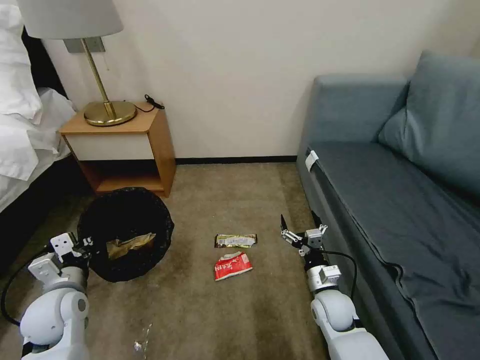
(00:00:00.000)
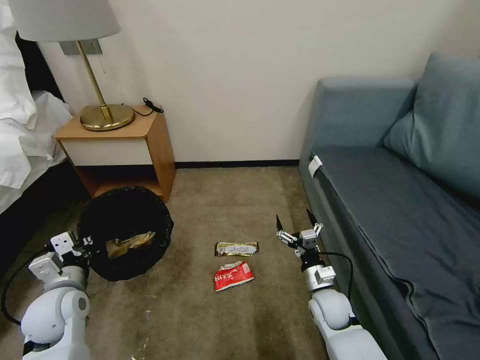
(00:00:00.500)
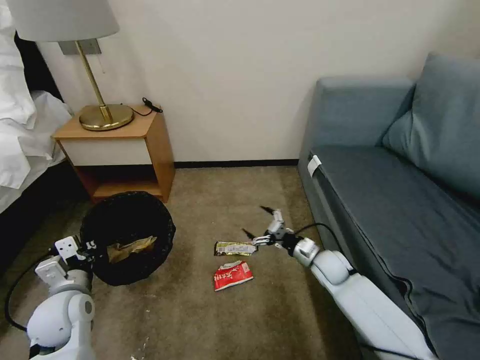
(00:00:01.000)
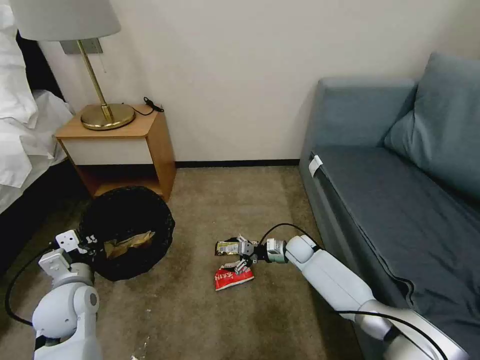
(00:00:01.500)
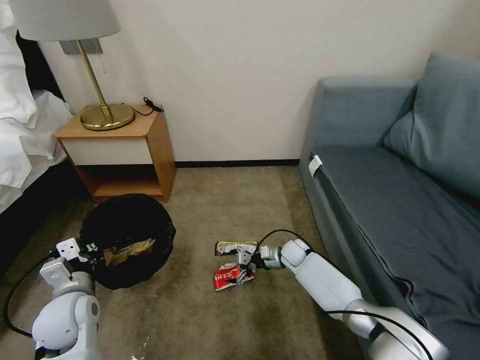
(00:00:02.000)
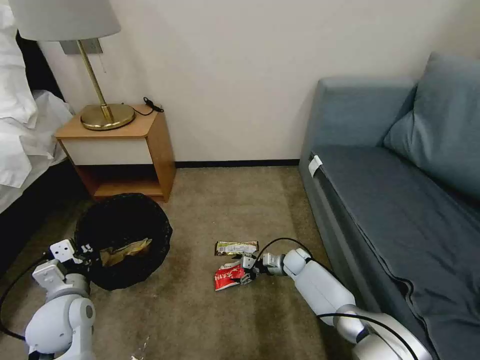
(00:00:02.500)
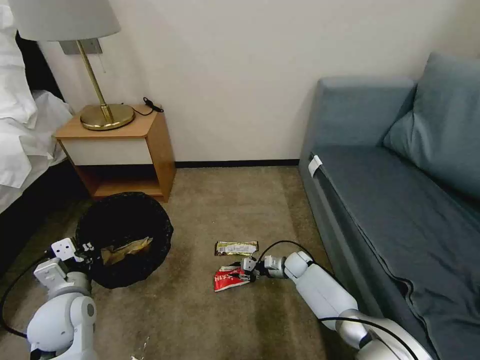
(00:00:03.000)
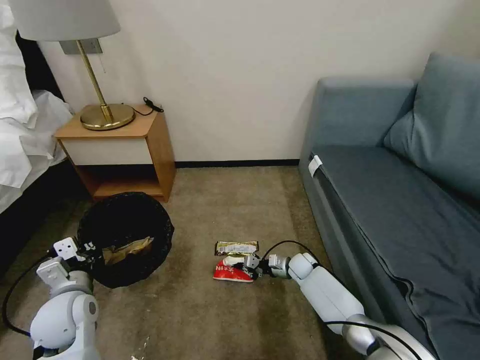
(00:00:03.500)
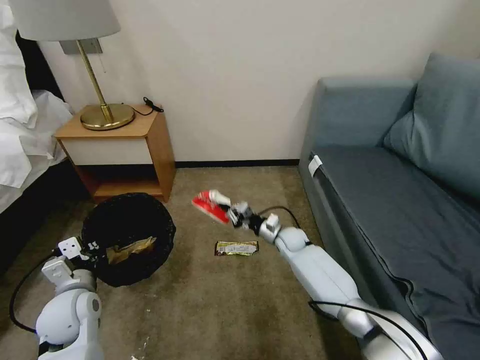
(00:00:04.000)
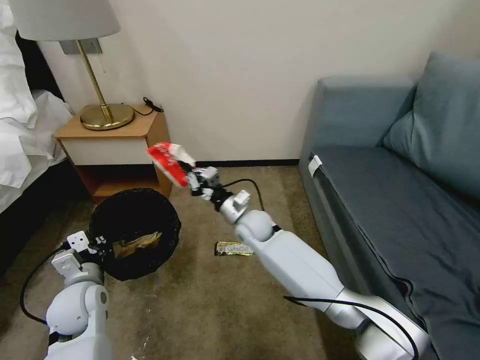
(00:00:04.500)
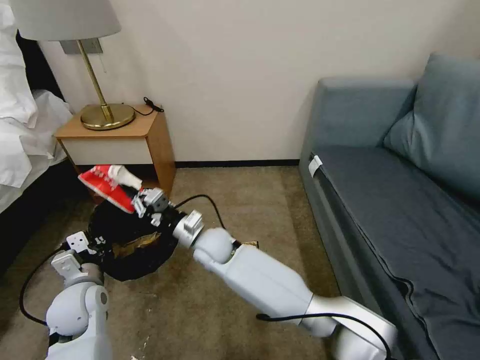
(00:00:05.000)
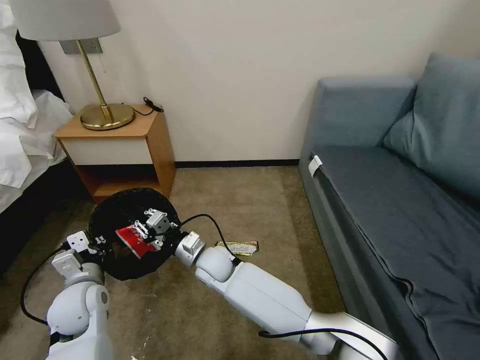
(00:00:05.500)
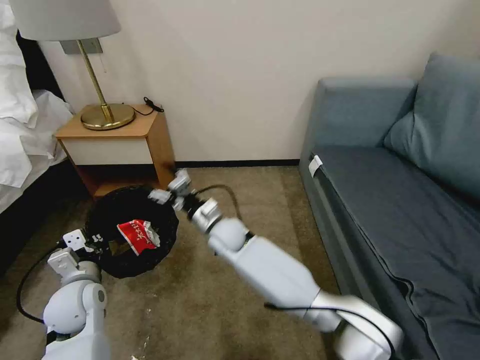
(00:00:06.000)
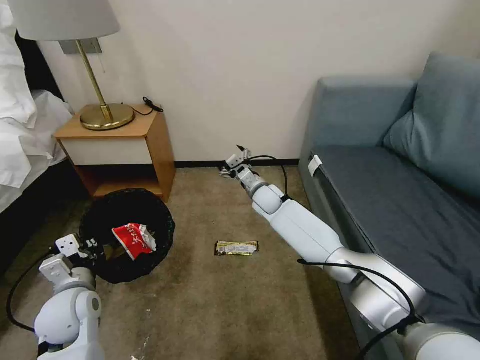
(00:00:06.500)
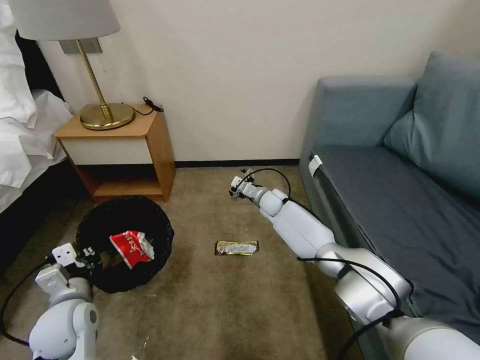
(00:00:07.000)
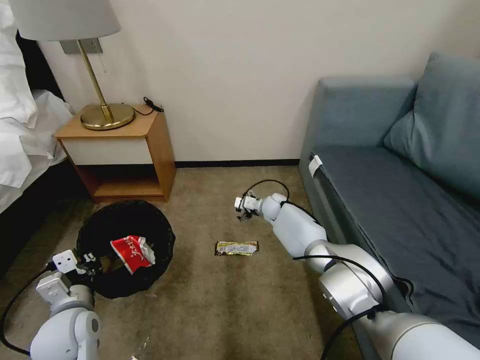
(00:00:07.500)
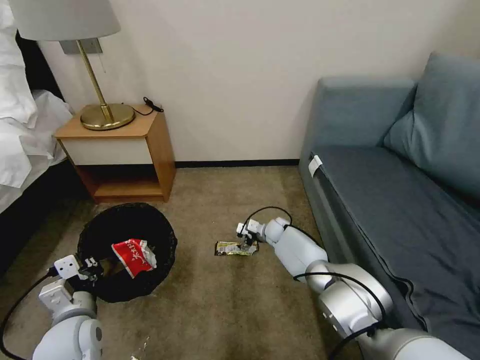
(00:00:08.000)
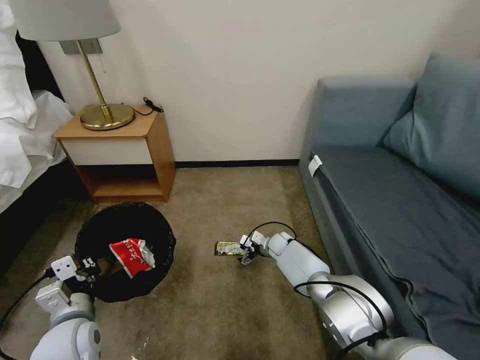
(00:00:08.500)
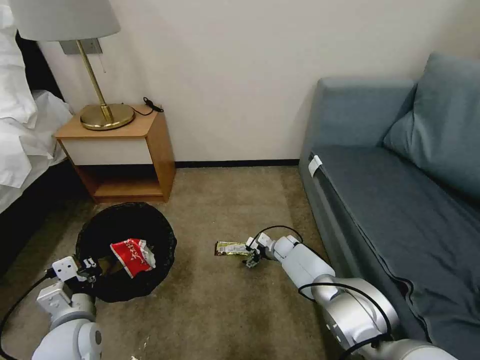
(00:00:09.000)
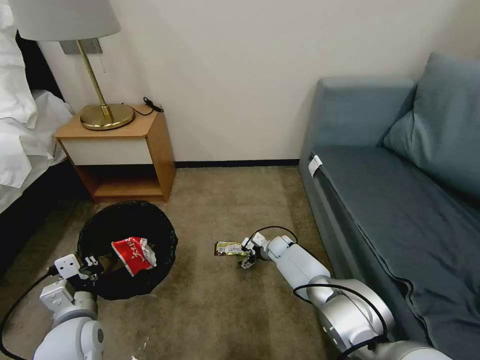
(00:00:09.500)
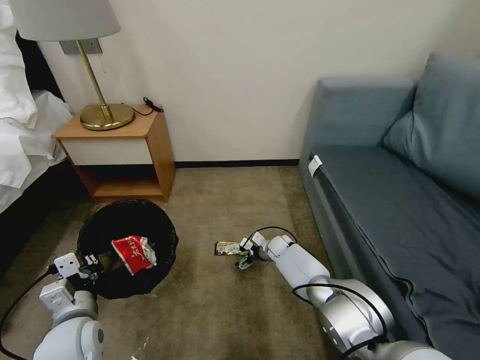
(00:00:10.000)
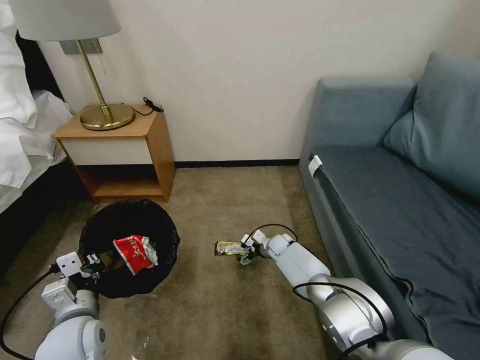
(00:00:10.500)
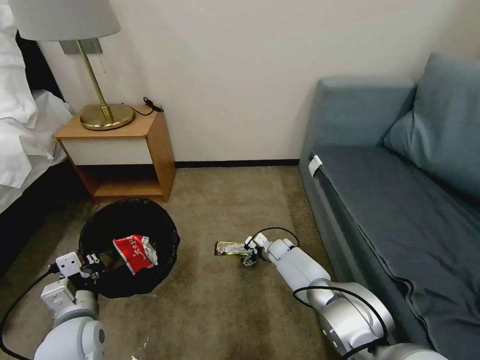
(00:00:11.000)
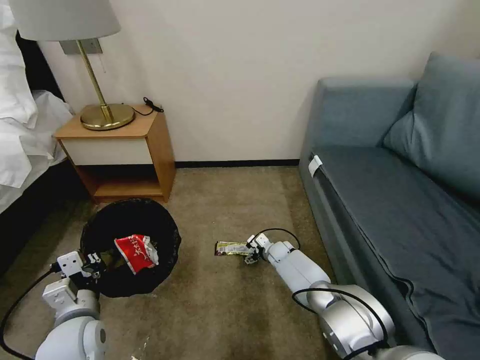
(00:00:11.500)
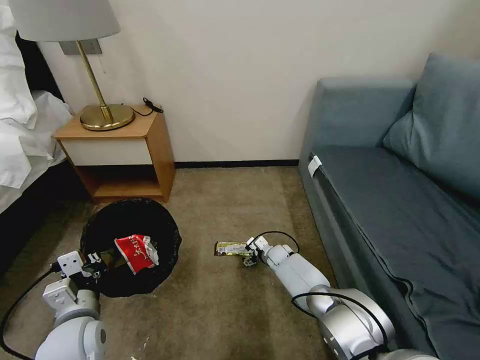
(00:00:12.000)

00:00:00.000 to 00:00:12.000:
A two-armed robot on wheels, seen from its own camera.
Task of the whole recording: Pick up the trash bin, then pick up the garbage on the floor and place it into the trash bin.
00:00:00.000 to 00:00:02.000: The right gripper heads forward, covering roughly 20 cm.
00:00:02.000 to 00:00:04.000: The right gripper ends up roughly 5 cm from where it was, and closes.
00:00:04.000 to 00:00:06.000: The right gripper goes approximately 25 cm to the left and upward, and opens its fingers.
00:00:06.000 to 00:00:08.000: The left gripper goes about 5 cm backward. Meanwhile the right gripper moves to the right, downward and forward, about 25 cm.
00:00:08.000 to 00:00:10.000: The right gripper moves roughly 5 cm.
00:00:10.000 to 00:00:12.000: The grippers stay close to where they were, moving slightly.

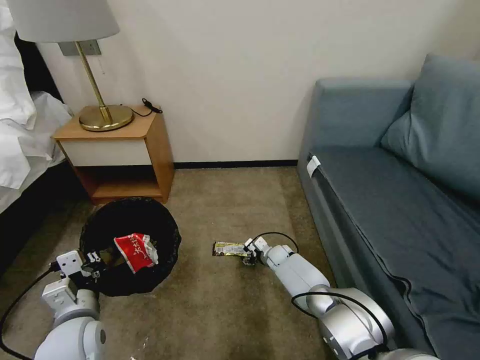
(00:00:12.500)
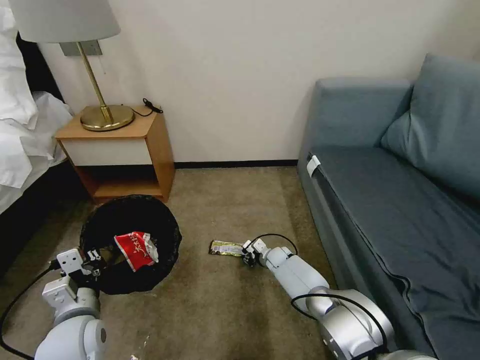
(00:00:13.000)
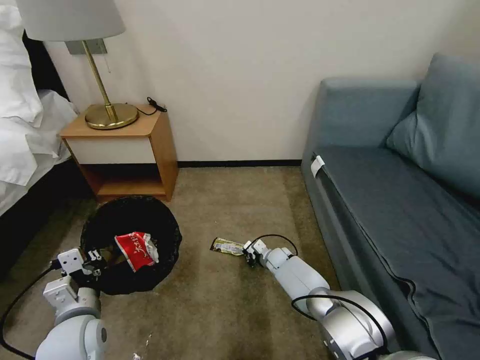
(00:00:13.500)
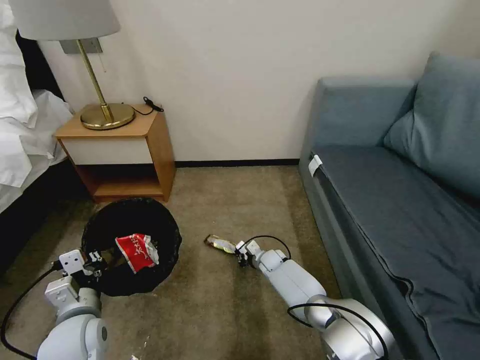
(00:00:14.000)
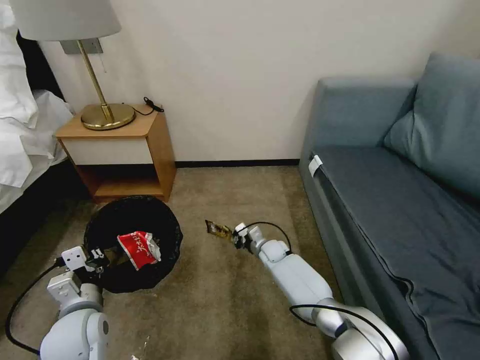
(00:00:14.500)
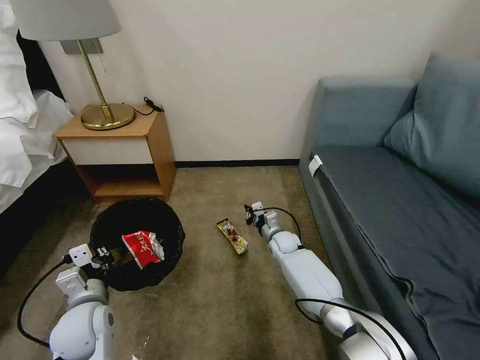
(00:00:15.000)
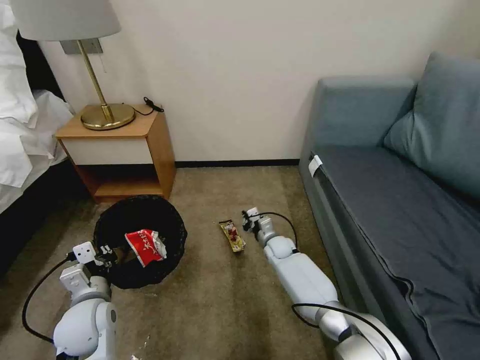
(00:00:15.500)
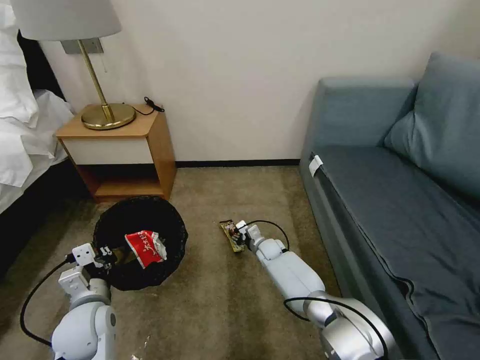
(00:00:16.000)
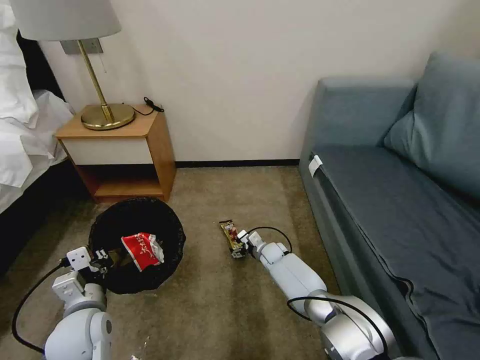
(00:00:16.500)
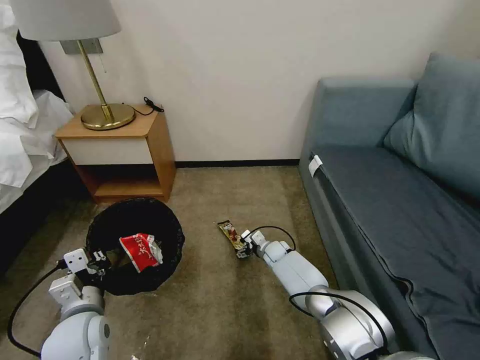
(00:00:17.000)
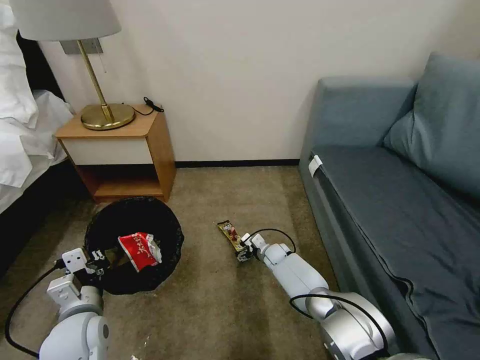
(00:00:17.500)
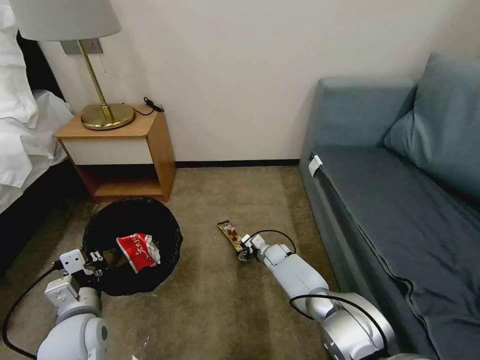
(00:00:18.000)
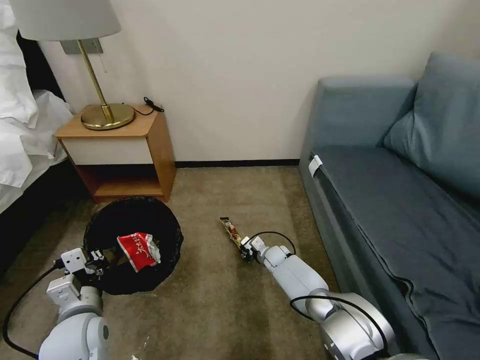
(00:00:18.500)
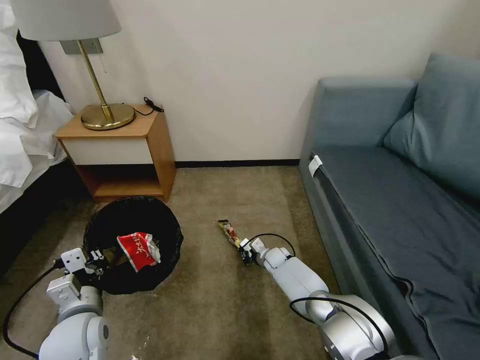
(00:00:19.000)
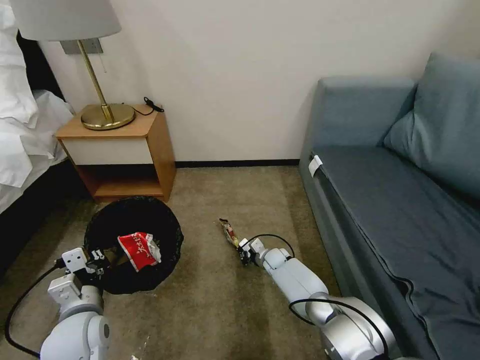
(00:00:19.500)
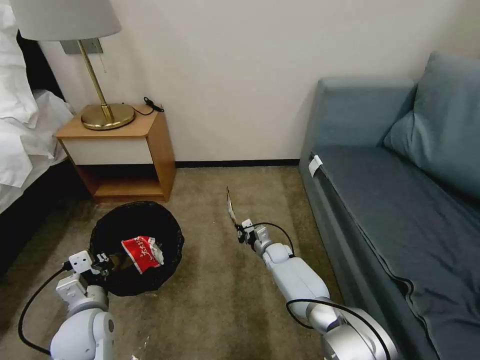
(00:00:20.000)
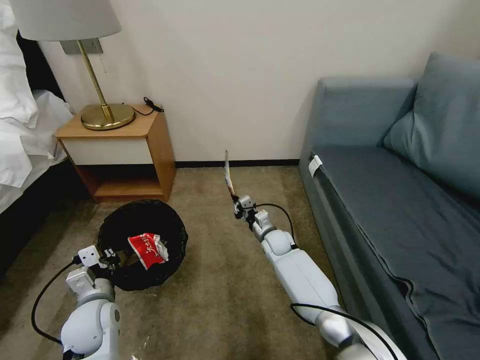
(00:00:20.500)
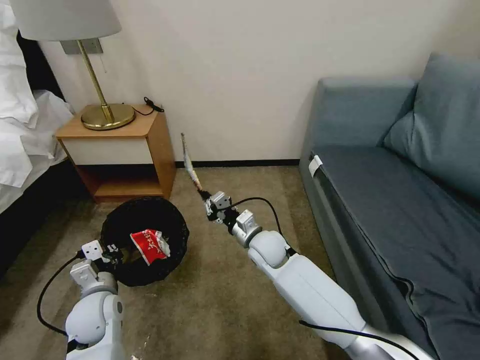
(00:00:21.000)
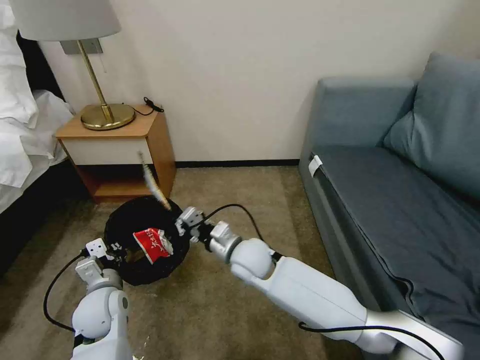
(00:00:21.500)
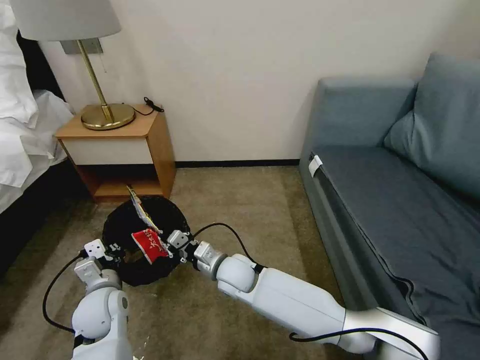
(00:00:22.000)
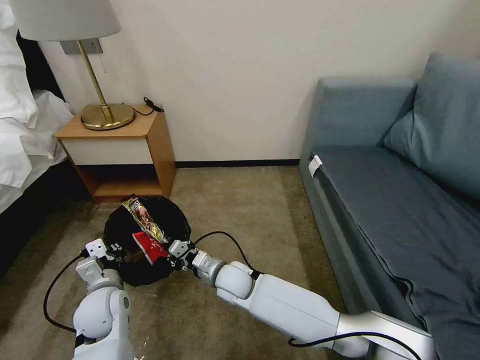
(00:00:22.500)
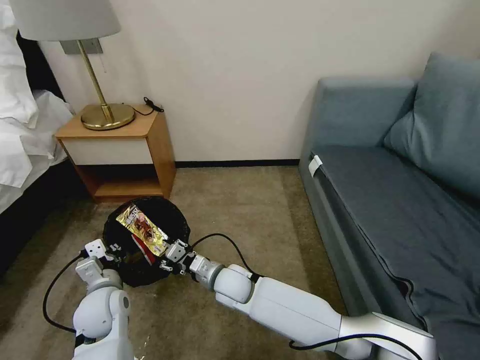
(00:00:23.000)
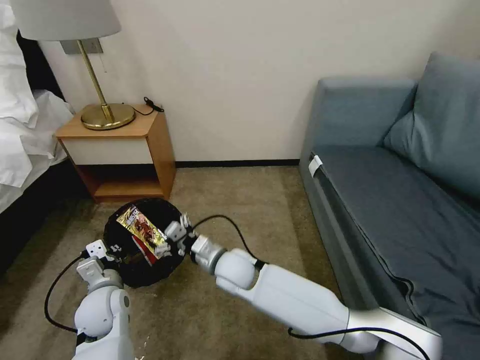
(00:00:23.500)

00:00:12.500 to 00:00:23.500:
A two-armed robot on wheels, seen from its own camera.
Task of the whole recording: Pick up the trash bin, then pick up the garbage on the floor and place it into the trash bin.
00:00:12.500 to 00:00:14.500: The right gripper ends up some 5 cm from where it was, and closes its fingers.
00:00:14.500 to 00:00:16.000: The right gripper opens.
00:00:16.000 to 00:00:18.000: There are only small adjustments of the grippers.
00:00:18.000 to 00:00:20.000: The right gripper closes up.
00:00:20.000 to 00:00:21.500: The right gripper moves upward, backward and to the left, roughly 25 cm; the left gripper changes place by about 5 cm.
00:00:21.500 to 00:00:23.500: The right gripper reaches about 10 cm downward, then returns, and opens up.

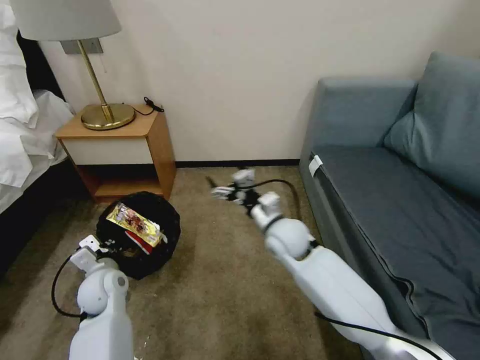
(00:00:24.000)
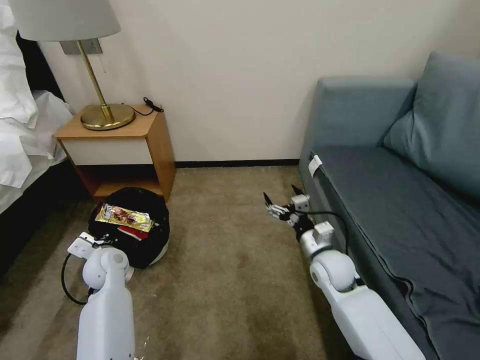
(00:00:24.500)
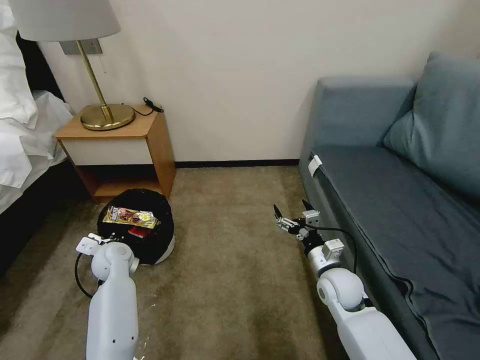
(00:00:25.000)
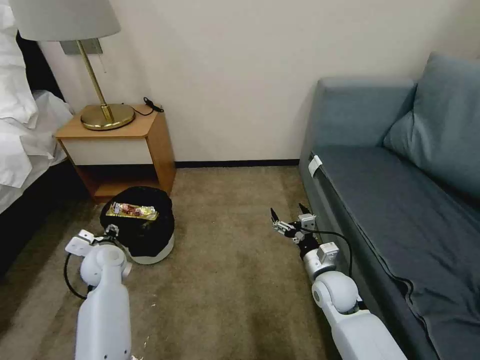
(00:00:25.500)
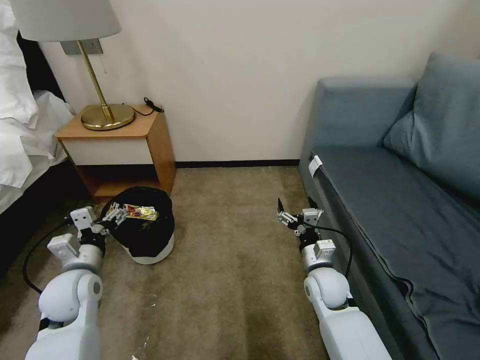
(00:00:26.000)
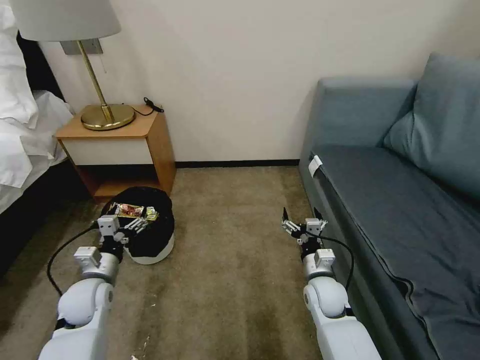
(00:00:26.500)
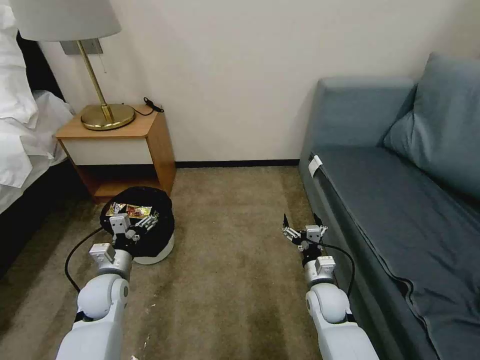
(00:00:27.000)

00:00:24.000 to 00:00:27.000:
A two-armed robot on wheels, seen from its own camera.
Task of the whole recording: Pick up the trash bin, then pick up the garbage on the floor and place it into the trash bin.
00:00:24.000 to 00:00:25.500: The right gripper shifts approximately 20 cm to the right, downward and backward; the left gripper is displaced forward by some 5 cm, and opens its fingers.
00:00:25.500 to 00:00:27.000: The left gripper travels backward by approximately 5 cm.
